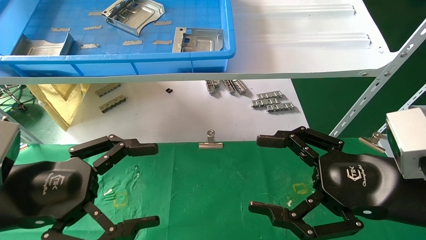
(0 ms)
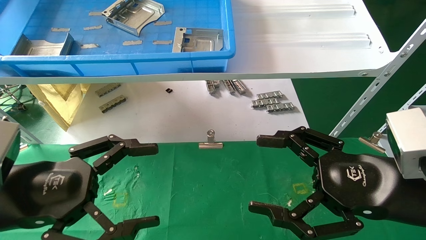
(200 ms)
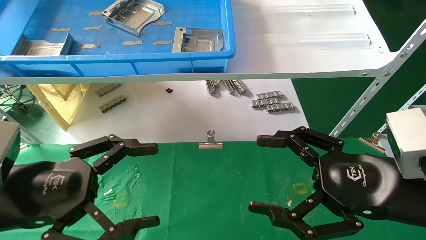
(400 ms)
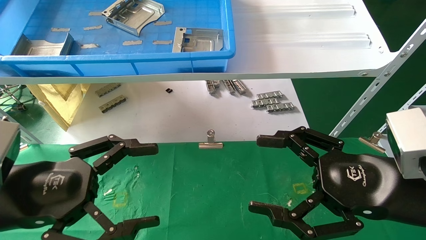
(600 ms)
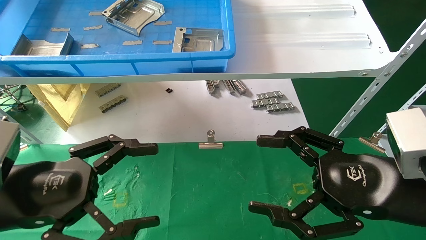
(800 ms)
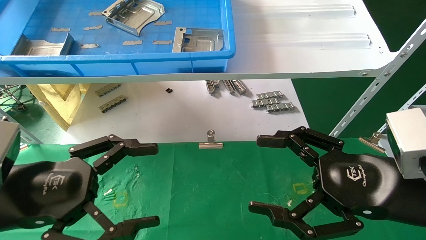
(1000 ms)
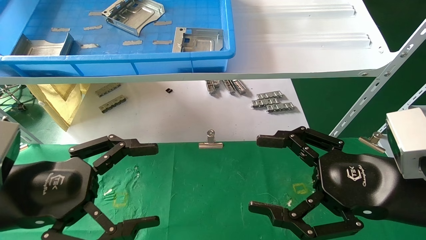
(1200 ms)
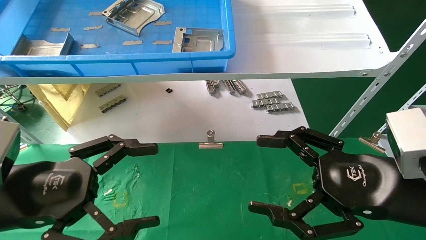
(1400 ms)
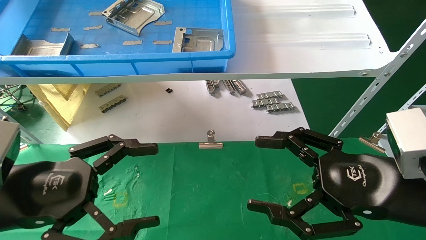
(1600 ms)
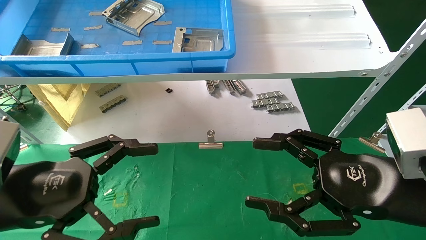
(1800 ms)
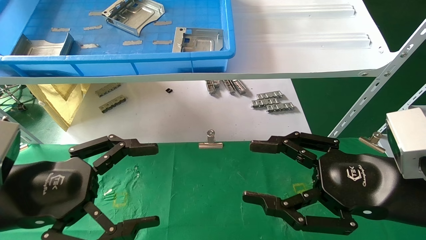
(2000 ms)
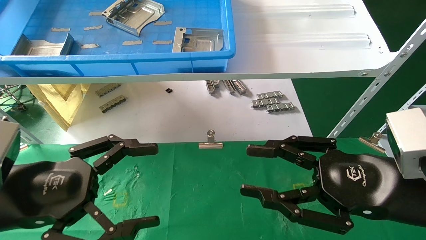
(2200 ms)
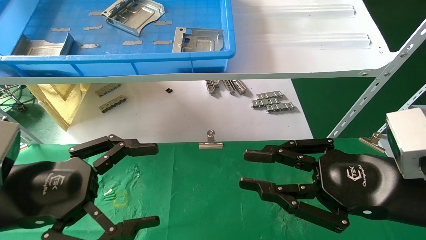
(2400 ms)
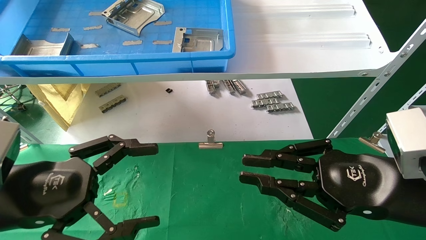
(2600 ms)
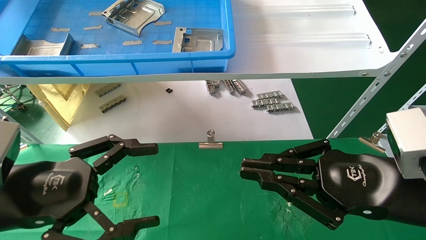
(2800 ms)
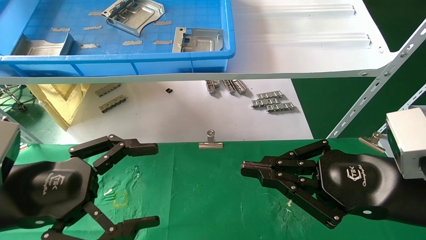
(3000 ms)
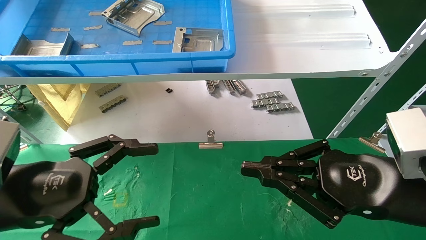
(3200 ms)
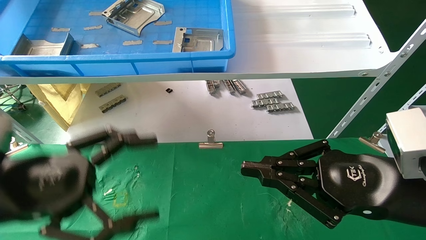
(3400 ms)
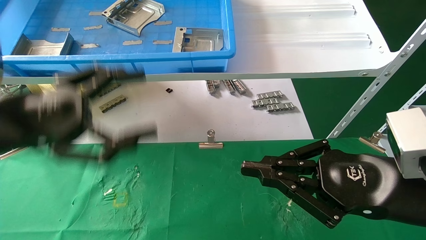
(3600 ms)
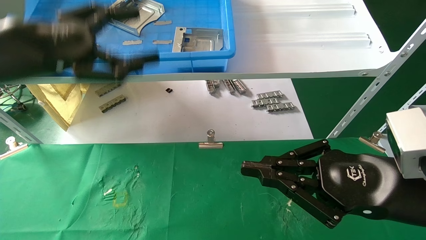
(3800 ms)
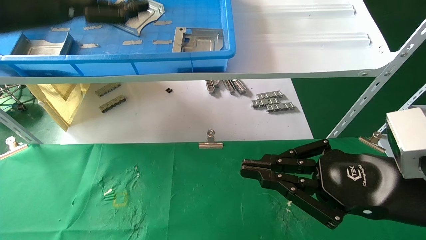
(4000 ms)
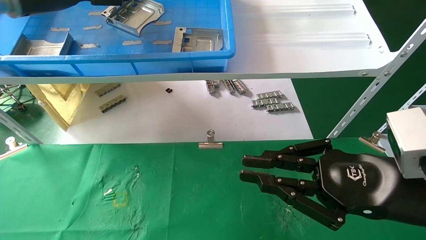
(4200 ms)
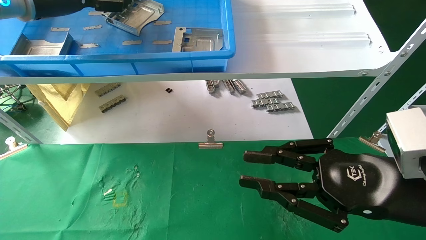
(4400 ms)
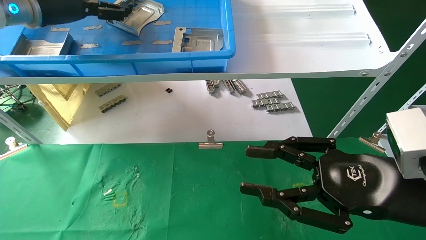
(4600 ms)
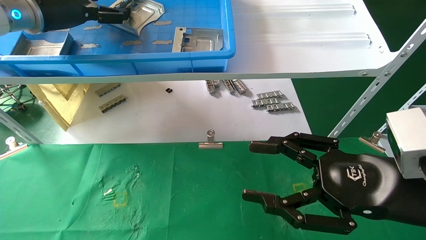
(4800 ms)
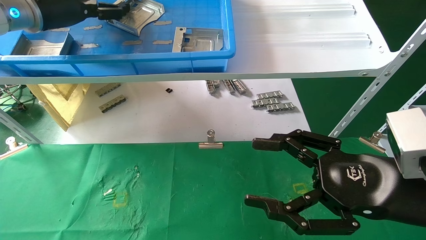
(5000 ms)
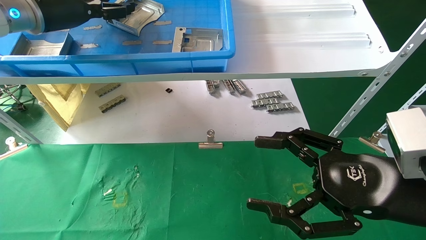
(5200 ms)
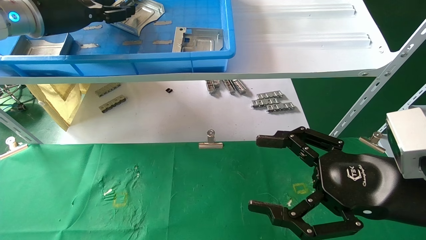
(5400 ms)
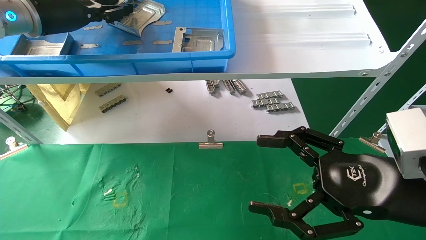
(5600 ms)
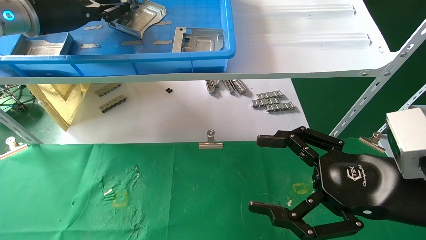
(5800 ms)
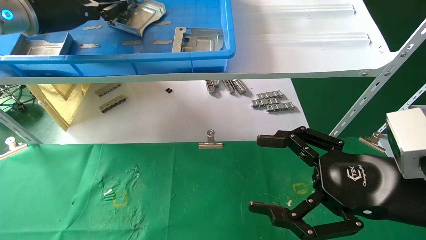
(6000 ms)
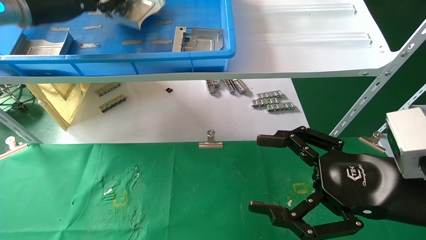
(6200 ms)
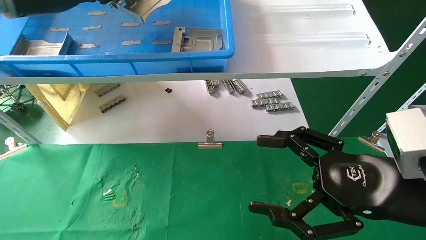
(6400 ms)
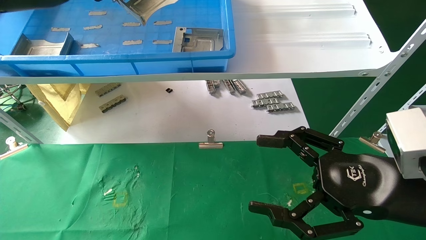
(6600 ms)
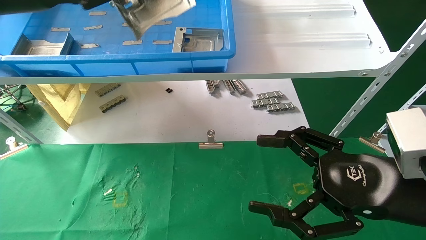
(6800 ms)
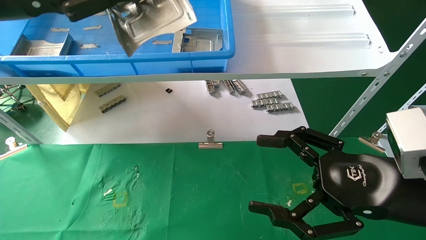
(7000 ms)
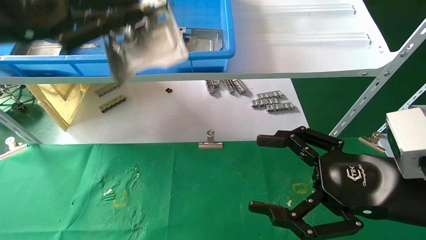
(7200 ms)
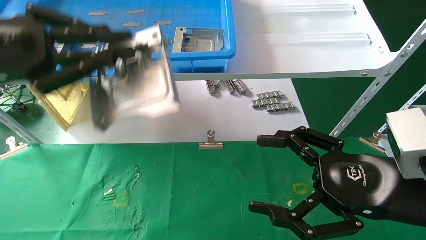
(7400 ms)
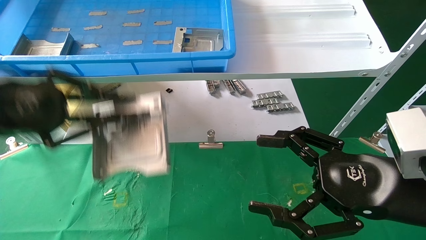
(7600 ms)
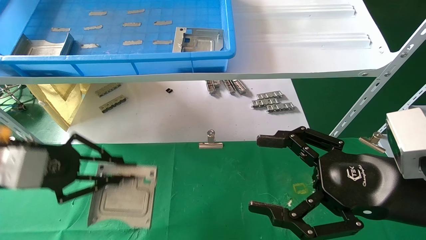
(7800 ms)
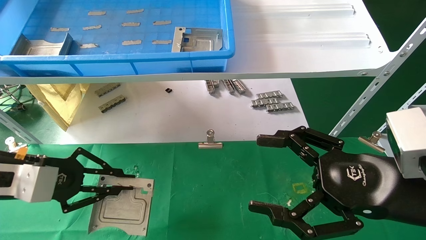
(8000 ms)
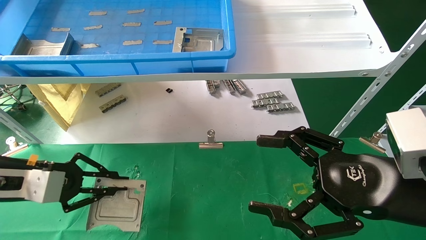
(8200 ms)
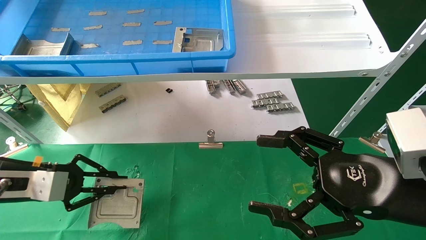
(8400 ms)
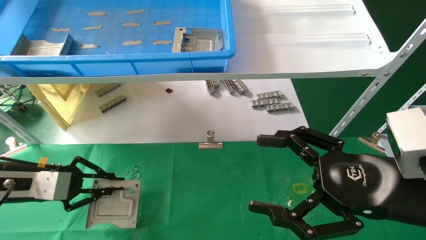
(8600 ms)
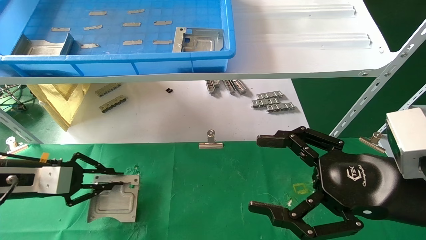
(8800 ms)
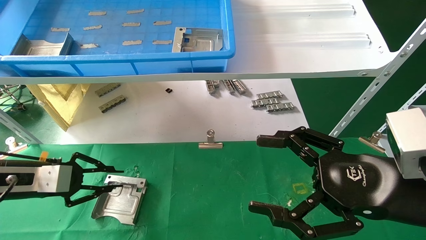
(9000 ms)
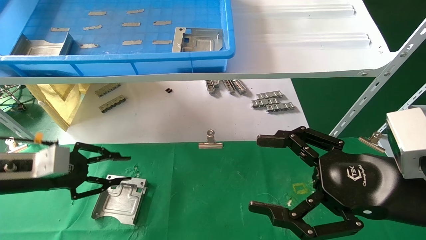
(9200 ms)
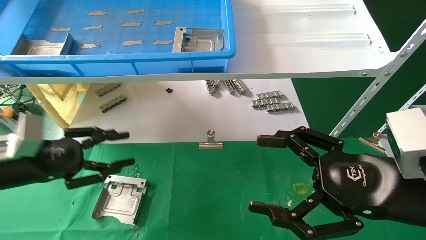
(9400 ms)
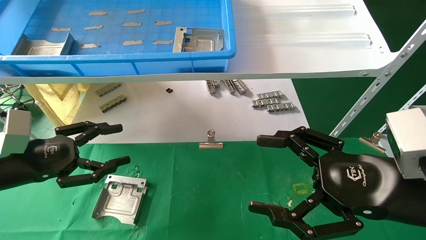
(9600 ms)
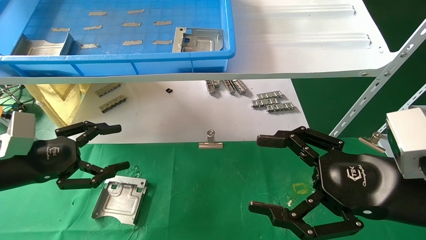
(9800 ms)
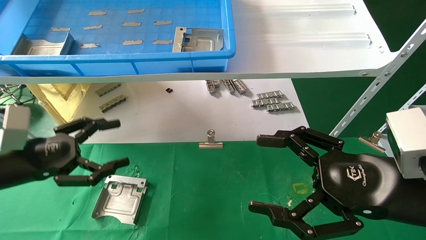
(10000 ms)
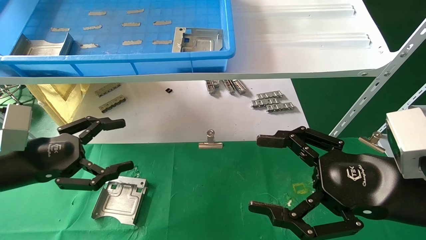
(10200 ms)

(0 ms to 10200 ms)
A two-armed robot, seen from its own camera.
Task of the whole recording: use the mechanical arm to pick up the parts and place them on the table.
Step, 3600 ms - 6000 ms: Pick up the hard drive bracket from the feeding area.
Step, 6200 ms - 9200 ms: Place the hard drive bracket into the box.
0 ms - 1400 ms: Both grippers stay put.
1400 ms - 3000 ms: The right gripper closes.
3000 ms - 4400 ms: The left gripper goes some 30 cm upward and forward.
4400 ms - 5800 ms: The left gripper closes up; the right gripper opens.
5800 ms - 7200 ms: The left gripper goes roughly 15 cm backward.
7200 ms - 8800 ms: The left gripper goes about 25 cm downward.
8800 ms - 10200 ms: The left gripper shifts by approximately 5 cm, and opens.

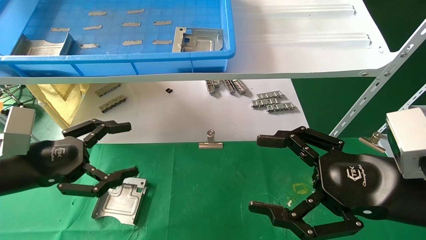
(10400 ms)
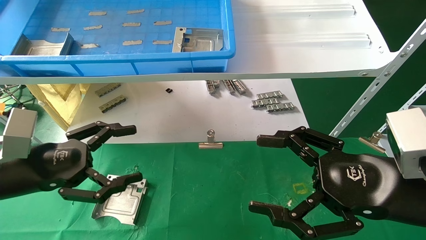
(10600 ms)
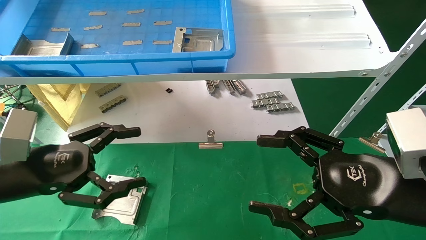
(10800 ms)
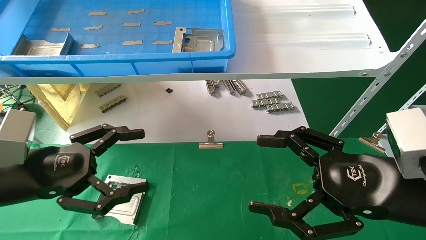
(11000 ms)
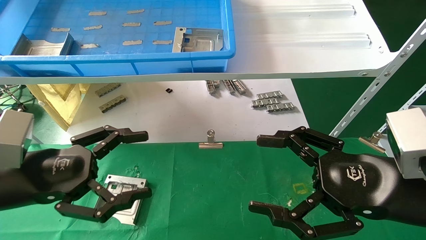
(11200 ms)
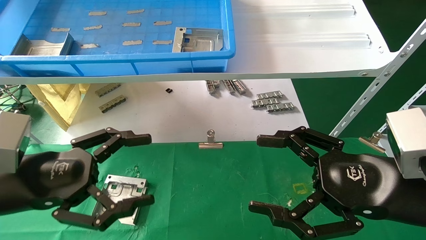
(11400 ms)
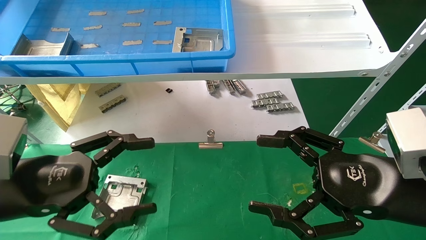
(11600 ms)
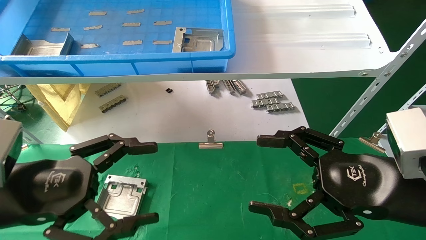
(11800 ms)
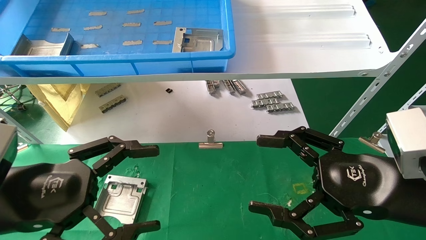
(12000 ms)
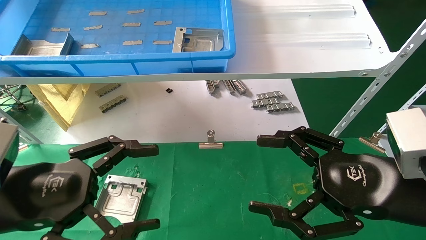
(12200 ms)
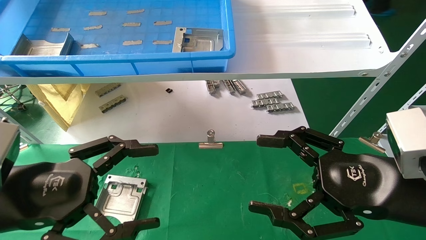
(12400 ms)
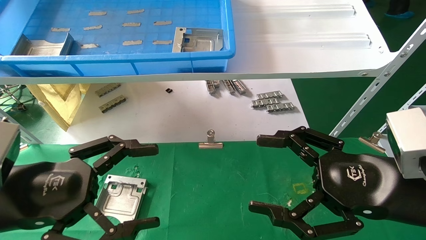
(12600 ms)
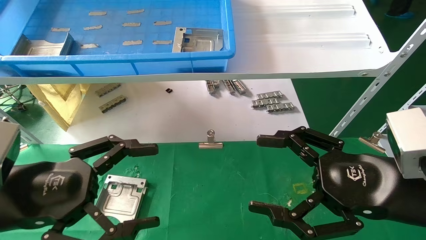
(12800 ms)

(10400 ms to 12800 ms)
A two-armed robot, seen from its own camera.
Task of the whole recording: use the mechanical arm to pick up the parts and place them on the table.
10400 ms - 11600 ms: The left gripper travels backward and to the right by roughly 10 cm.
11600 ms - 12800 ms: There are only small adjustments of the grippers.

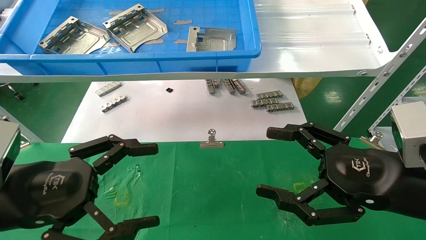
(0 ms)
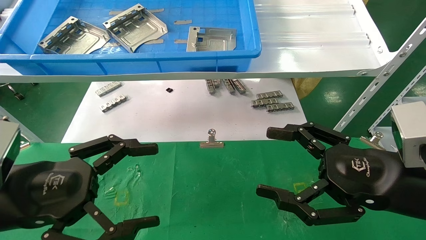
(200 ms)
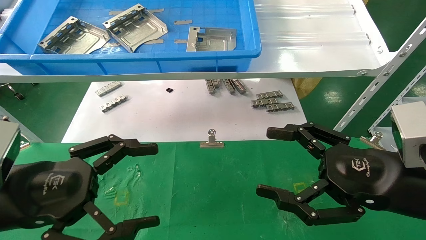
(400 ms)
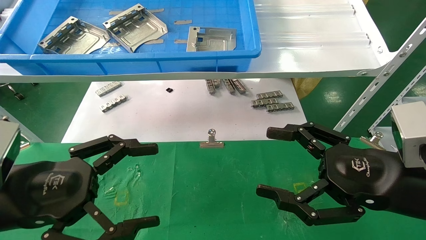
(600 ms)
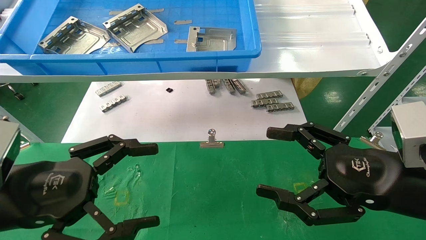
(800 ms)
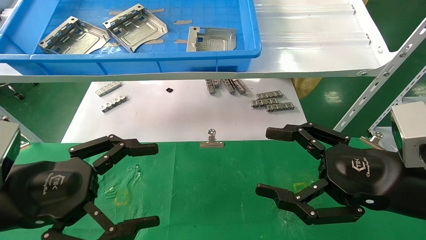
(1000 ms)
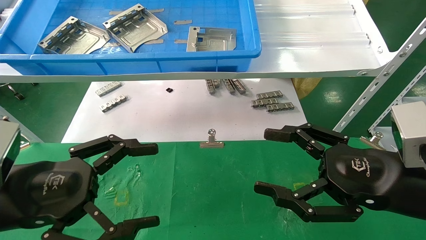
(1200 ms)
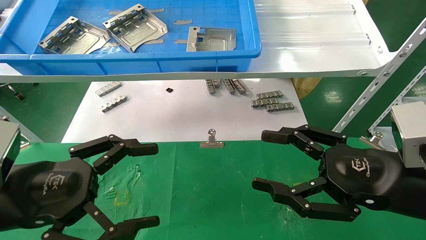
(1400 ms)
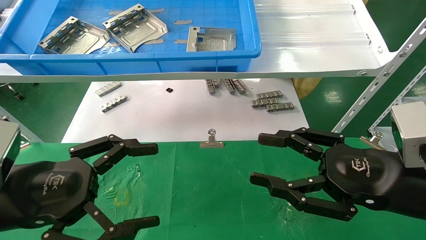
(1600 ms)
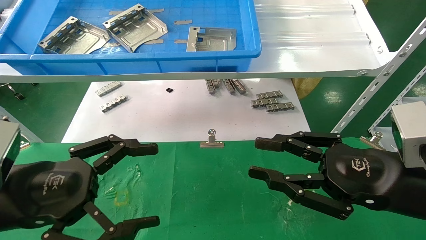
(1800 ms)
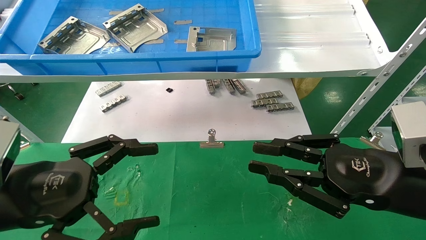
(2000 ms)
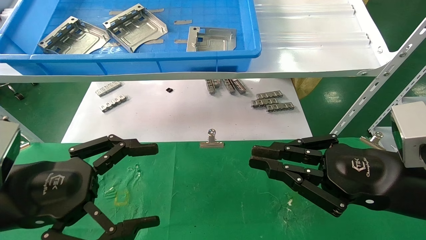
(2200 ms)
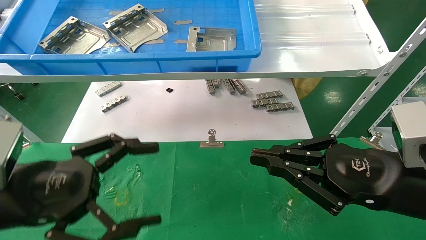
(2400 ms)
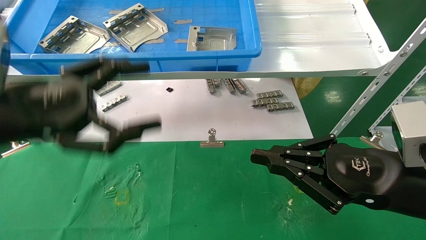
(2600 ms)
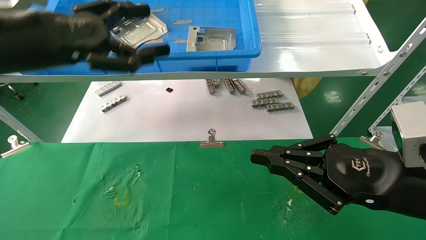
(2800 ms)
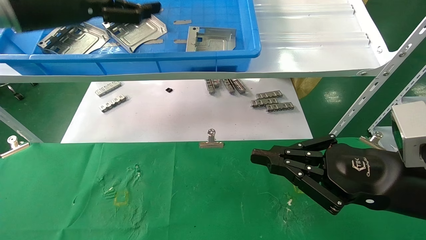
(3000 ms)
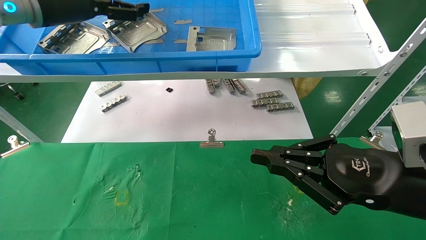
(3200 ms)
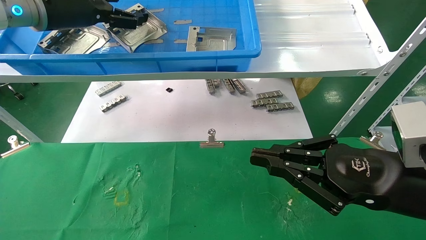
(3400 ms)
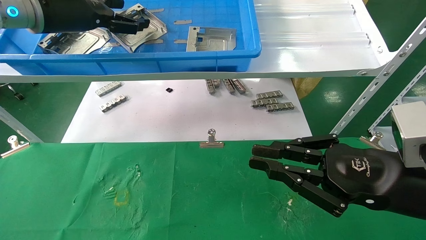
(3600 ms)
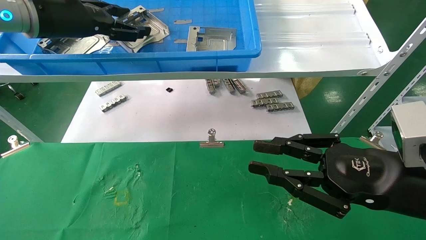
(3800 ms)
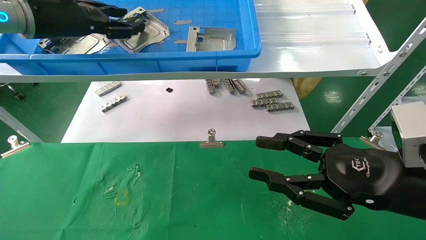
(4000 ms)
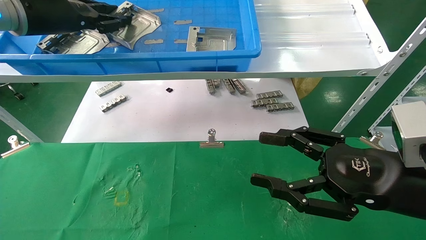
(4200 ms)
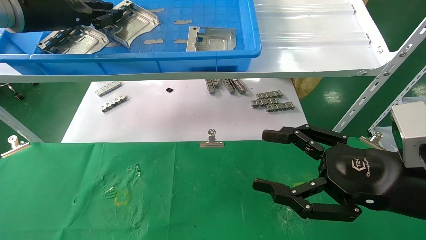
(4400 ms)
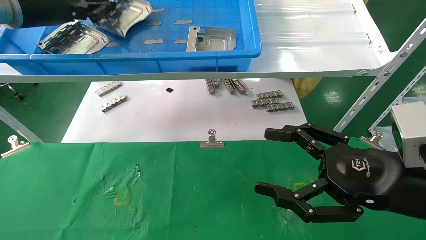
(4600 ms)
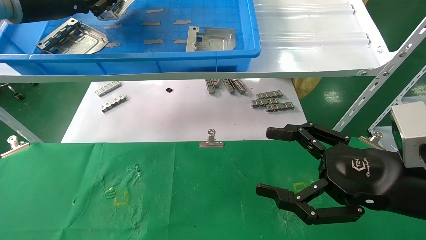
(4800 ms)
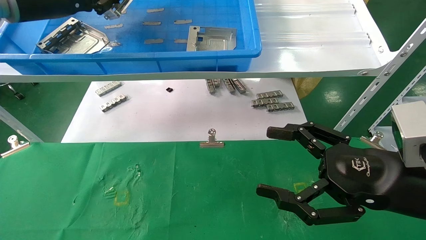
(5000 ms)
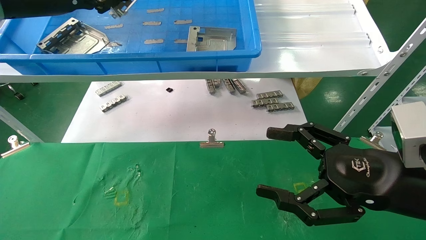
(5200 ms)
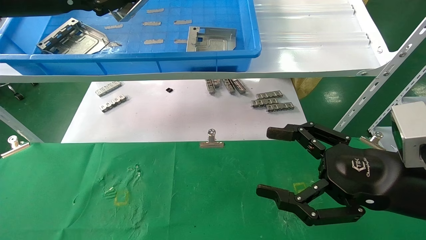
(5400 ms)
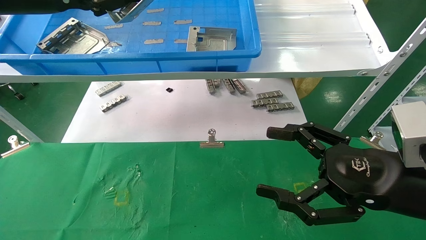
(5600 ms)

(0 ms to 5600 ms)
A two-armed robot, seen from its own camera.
Task of the whole recording: use the mechanical arm to pick up the parts and place them on the table.
Step, 2800 ms - 4600 ms: Pick up the hard drive bracket from the feeding area.
0 ms - 1400 ms: Neither gripper changes place.
1400 ms - 2800 ms: The right gripper closes its fingers. The left gripper travels upward and forward by about 20 cm.
2800 ms - 4200 ms: The right gripper opens its fingers, while the left gripper shifts roughly 10 cm forward, and closes up.
4200 ms - 5600 ms: The left gripper heads backward, covering about 10 cm, and closes up. The right gripper opens.
